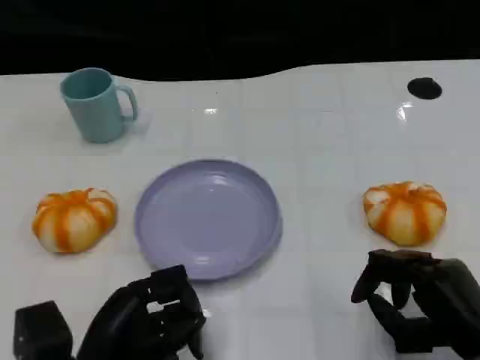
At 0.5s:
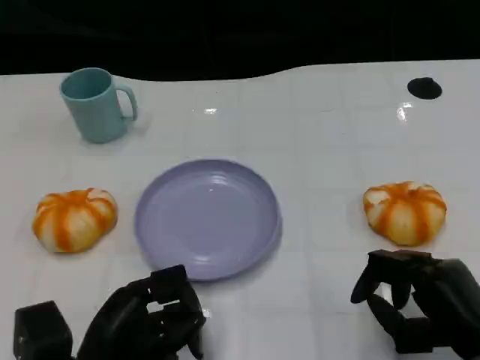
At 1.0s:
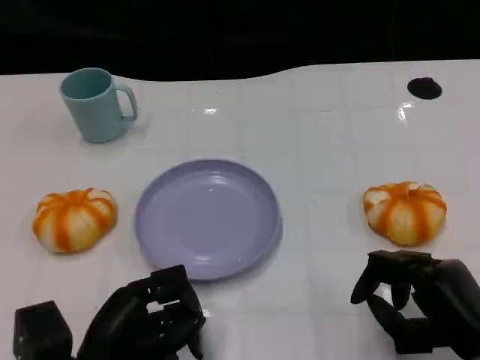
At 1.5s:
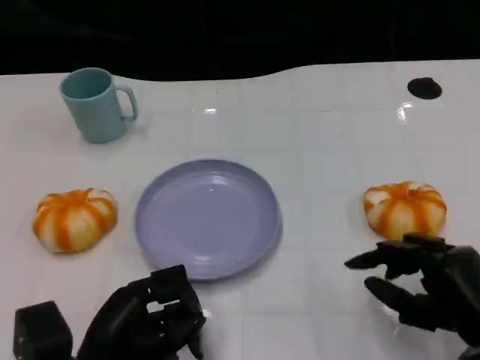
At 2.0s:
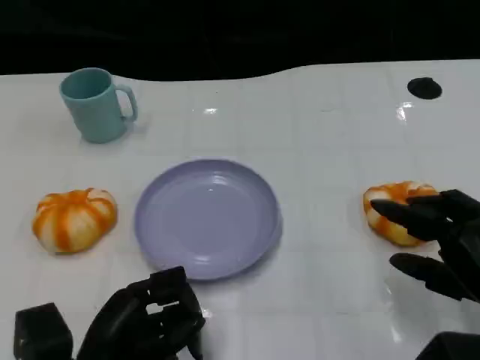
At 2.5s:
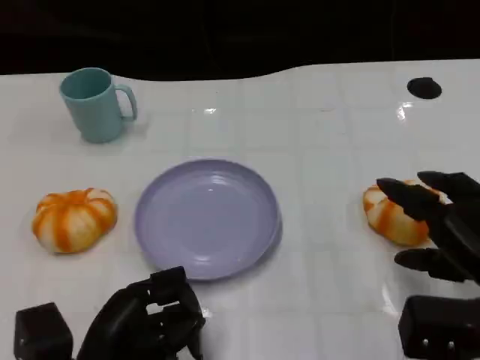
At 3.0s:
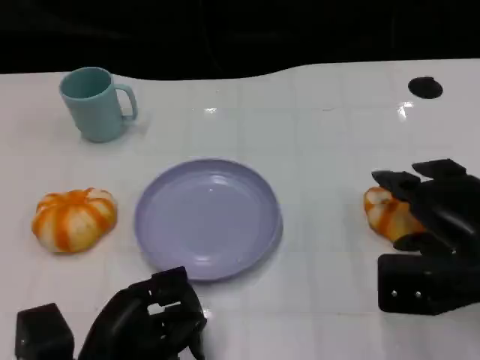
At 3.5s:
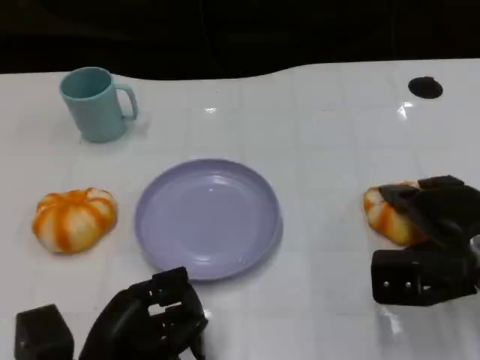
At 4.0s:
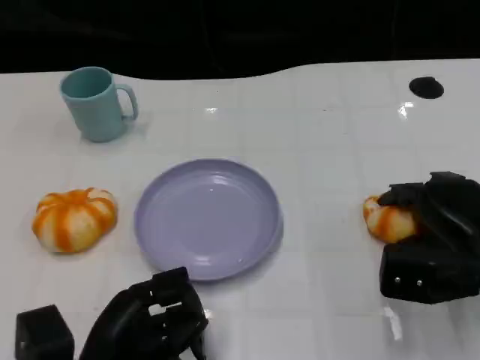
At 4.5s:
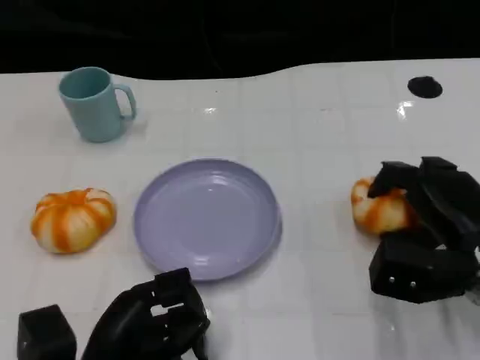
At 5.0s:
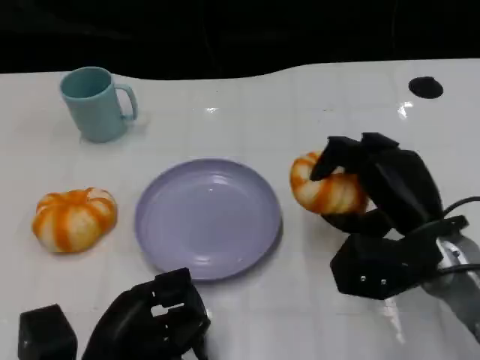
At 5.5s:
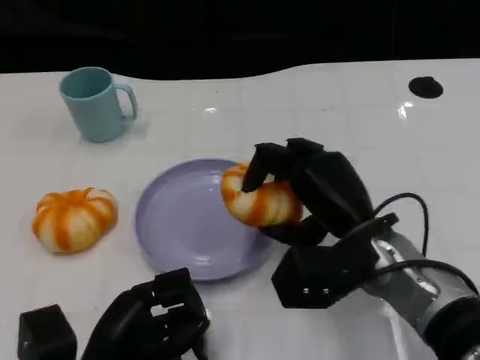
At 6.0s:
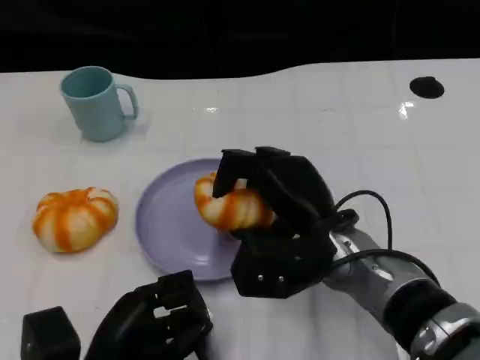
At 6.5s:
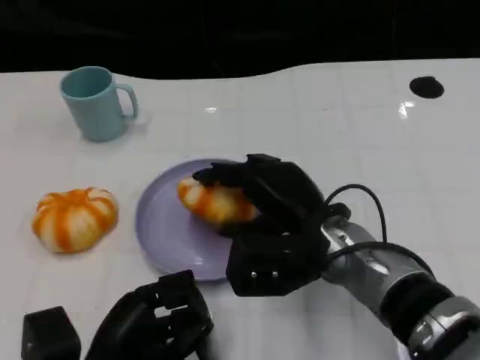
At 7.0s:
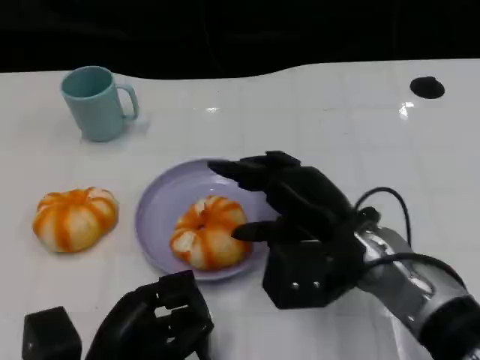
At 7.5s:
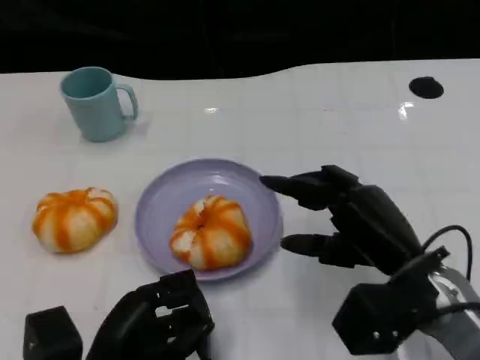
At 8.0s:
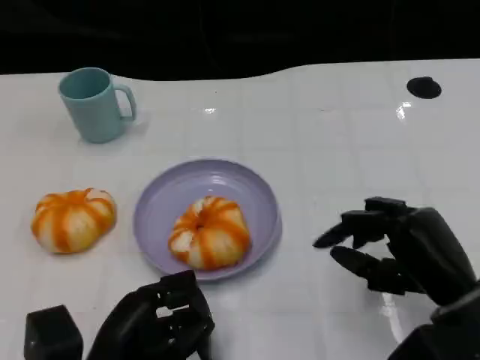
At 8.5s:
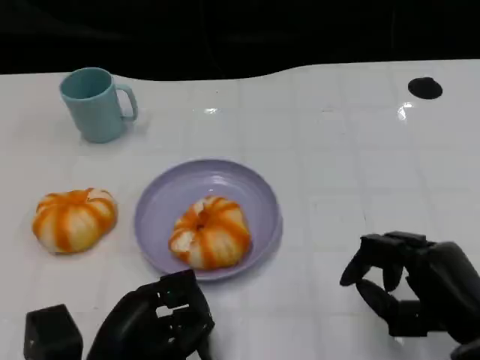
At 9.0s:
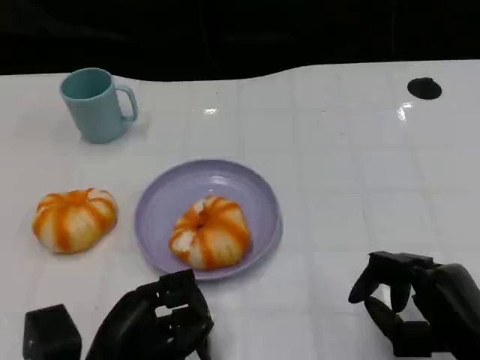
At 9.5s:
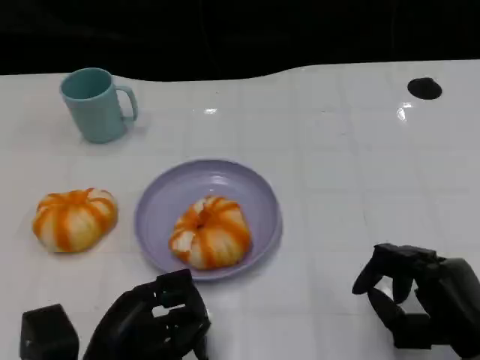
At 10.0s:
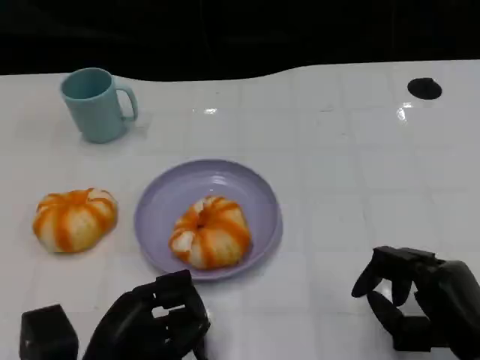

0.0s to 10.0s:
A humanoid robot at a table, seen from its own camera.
Task of the whole recording: Grasp the bread from the table and place it into the plate.
0.0s to 2.0s: The right hand shifts by some 5 cm.
2.0s to 4.0s: The right hand shifts about 10 cm forward.
4.0s to 6.0s: The right hand shifts approximately 15 cm to the left.
6.0s to 8.0s: The right hand goes some 15 cm to the right and backward.
8.0s to 10.0s: The right hand shifts by approximately 5 cm.

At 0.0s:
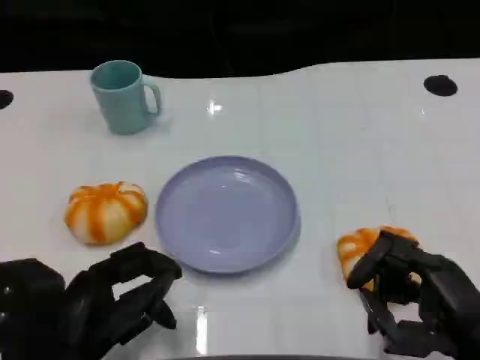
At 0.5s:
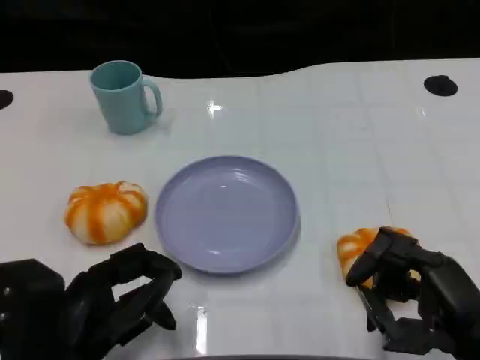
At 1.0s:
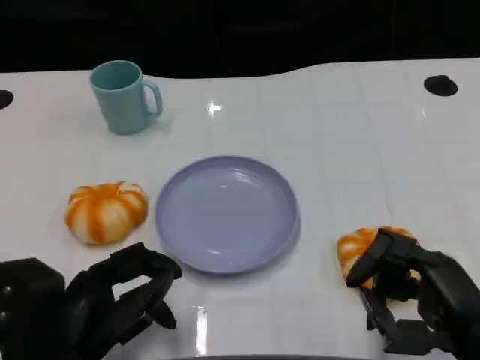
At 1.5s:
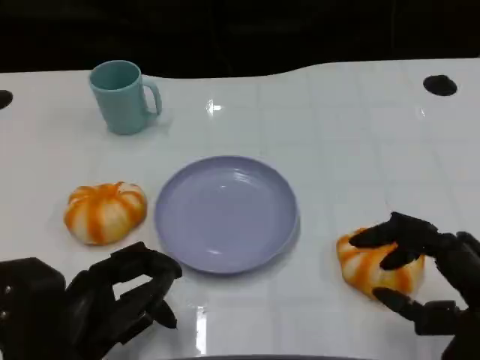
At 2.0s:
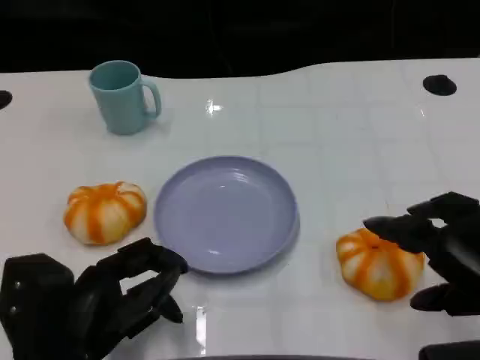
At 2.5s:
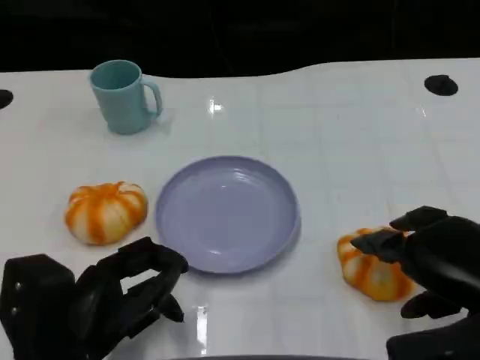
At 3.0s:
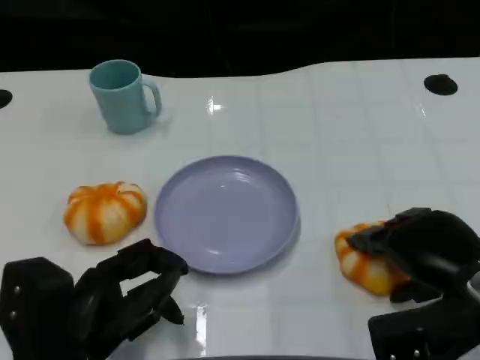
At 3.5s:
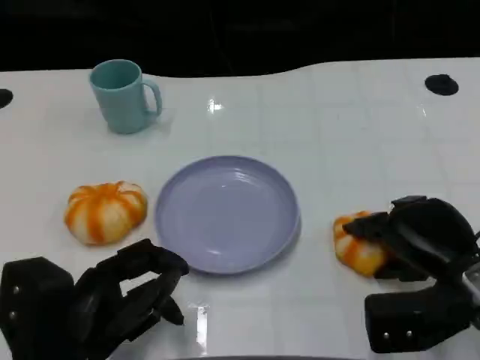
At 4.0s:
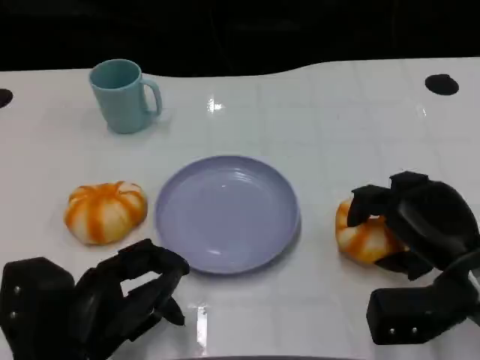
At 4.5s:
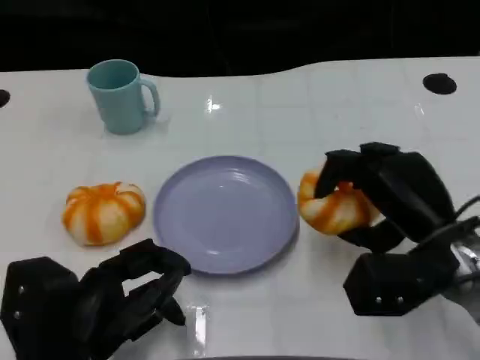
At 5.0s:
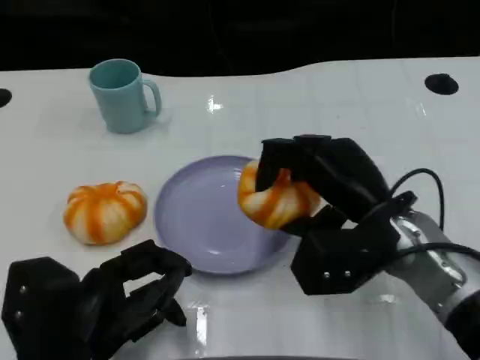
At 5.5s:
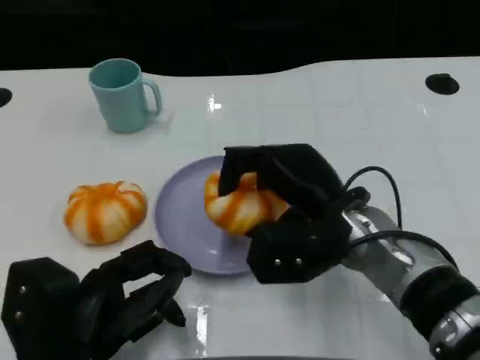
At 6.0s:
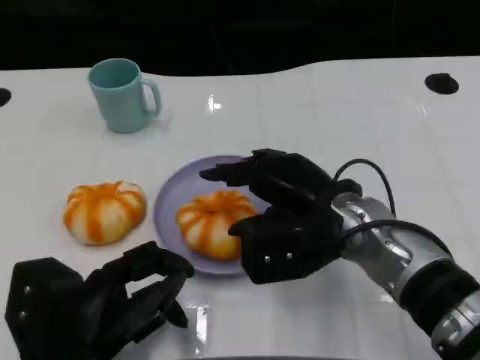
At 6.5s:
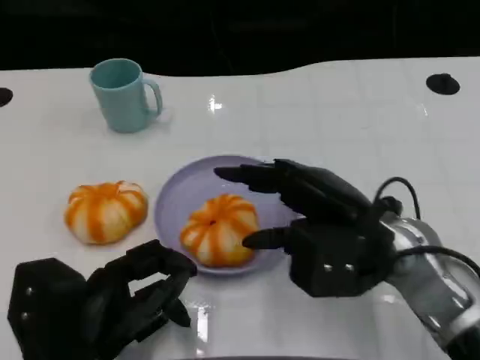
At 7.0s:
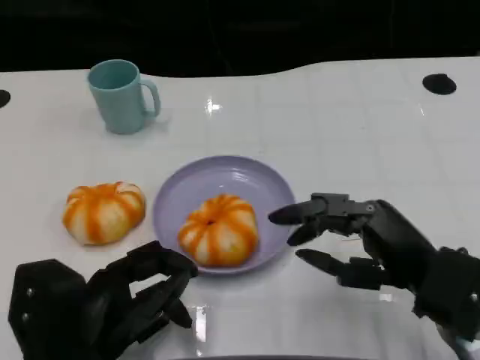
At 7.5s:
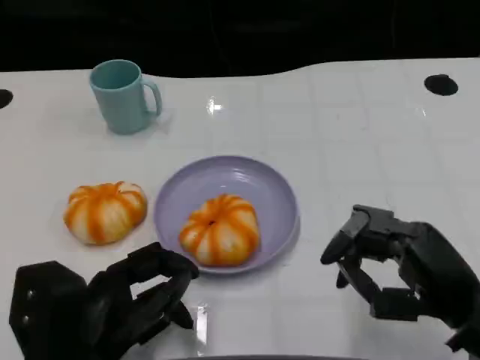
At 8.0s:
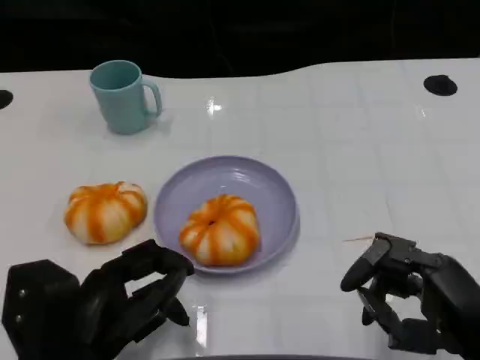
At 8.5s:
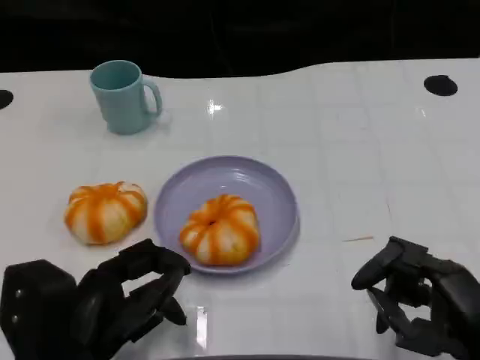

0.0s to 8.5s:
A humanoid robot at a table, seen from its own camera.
Task of the whole recording: Grasp the bread from the table and place it into the plate.
0.0s to 2.0s: The right hand moves upward, roughly 5 cm.
2.0s to 4.0s: The right hand moves forward and downward, approximately 10 cm.
4.0s to 6.5s: The right hand is displaced to the left and upward by some 10 cm.
6.5s to 8.5s: The right hand shifts approximately 15 cm backward and to the right.

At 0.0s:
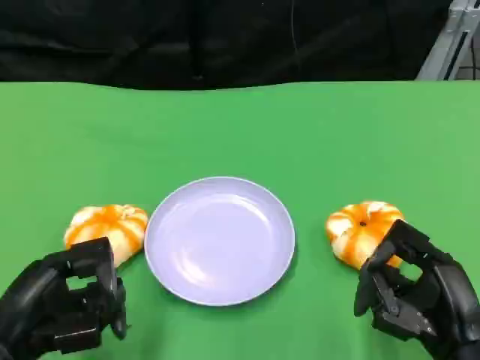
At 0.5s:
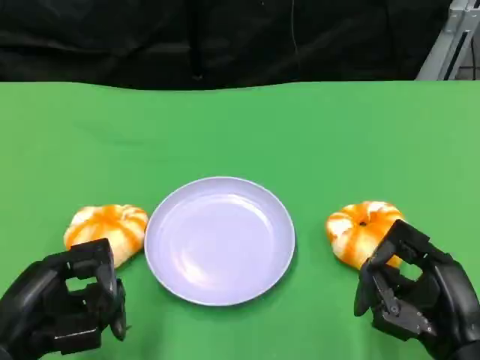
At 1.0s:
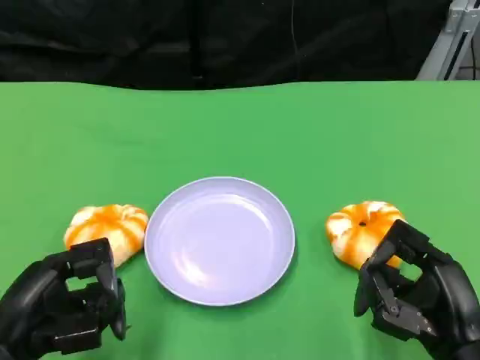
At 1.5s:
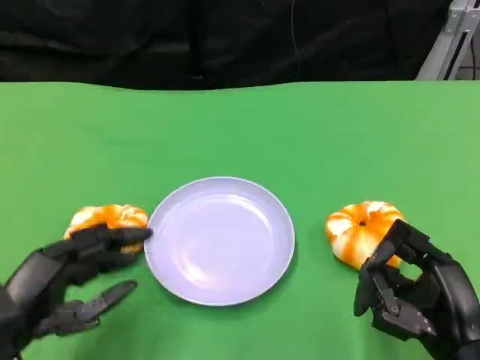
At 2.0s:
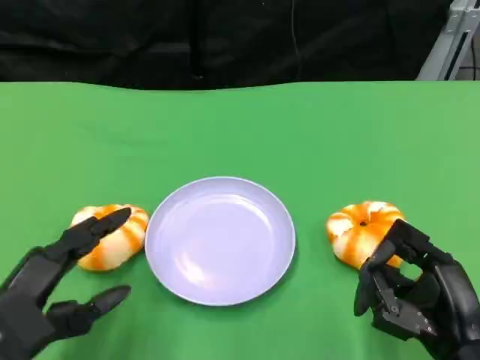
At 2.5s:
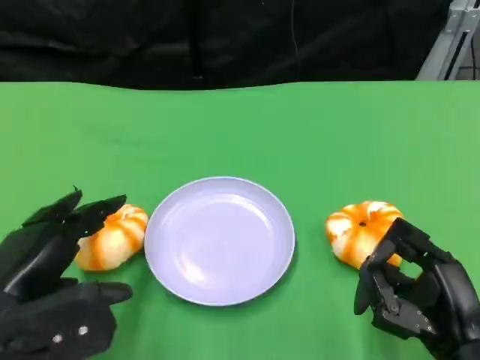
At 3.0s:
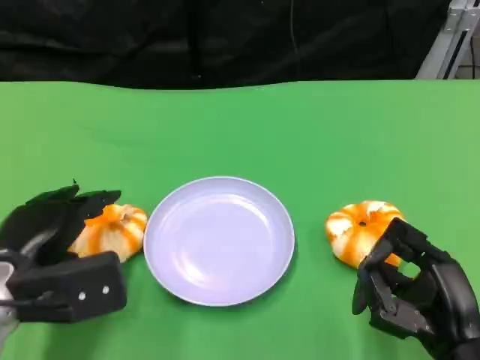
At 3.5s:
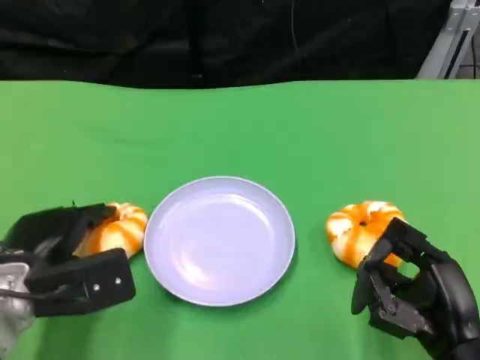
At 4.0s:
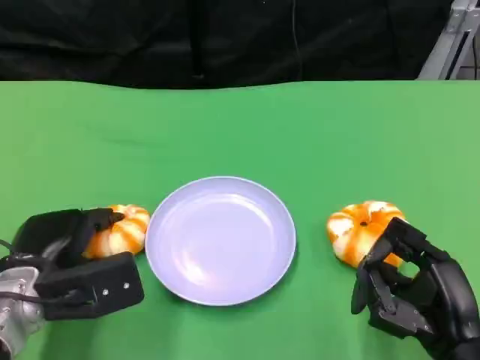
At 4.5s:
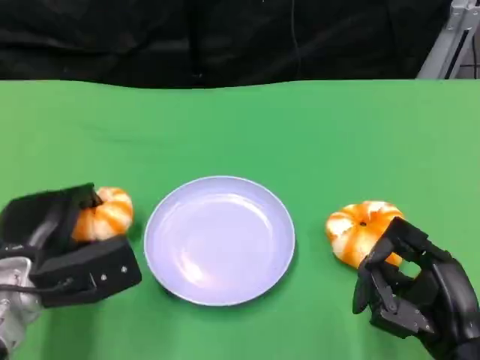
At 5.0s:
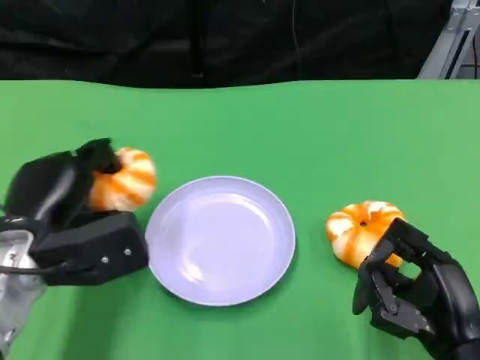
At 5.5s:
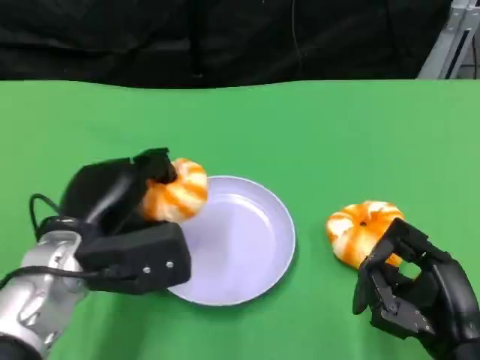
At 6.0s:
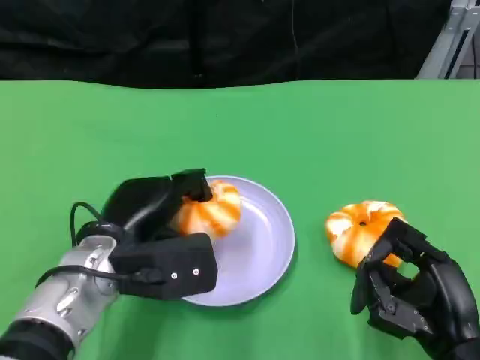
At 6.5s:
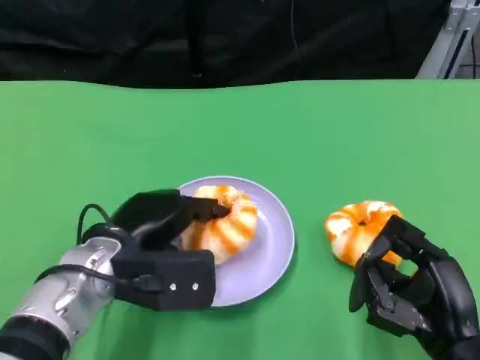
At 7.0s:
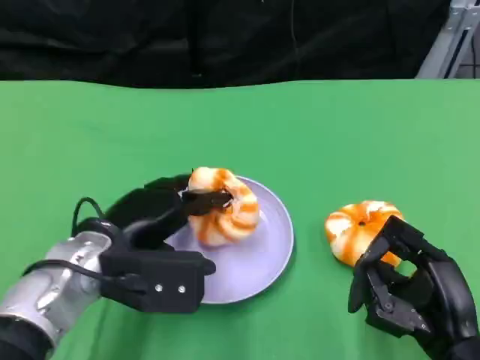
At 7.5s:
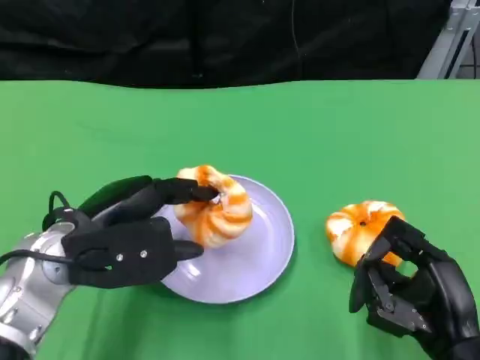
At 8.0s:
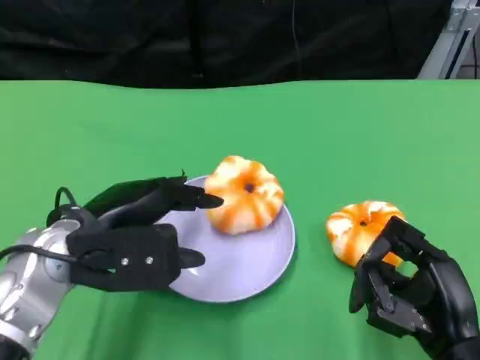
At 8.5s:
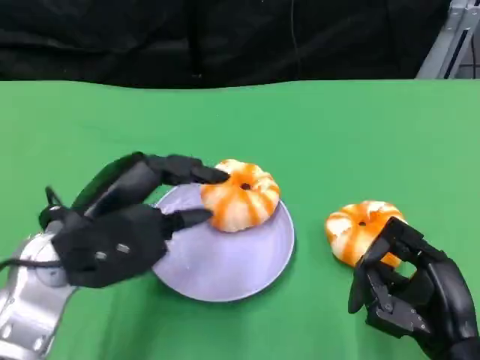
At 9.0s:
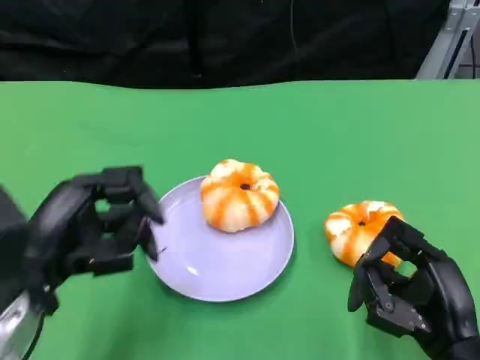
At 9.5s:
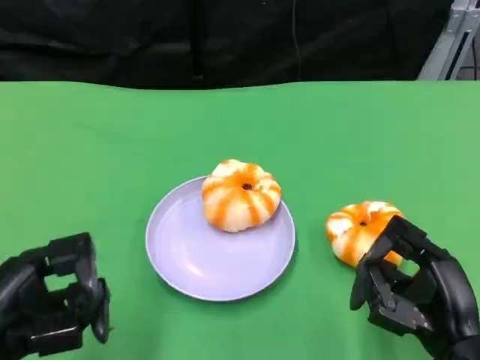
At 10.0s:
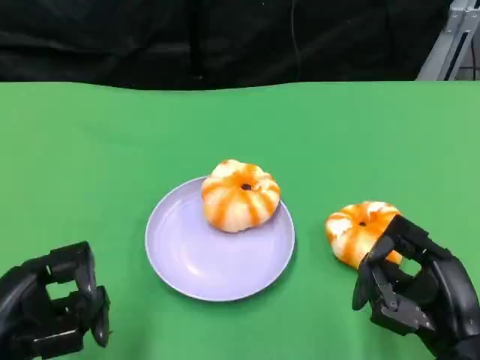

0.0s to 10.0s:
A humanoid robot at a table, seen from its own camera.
Task of the whole recording: Grasp the bread from the table and place it into the plate.
2.0s to 4.0s: The left hand is displaced forward by approximately 10 cm.
4.0s to 6.0s: The left hand goes some 10 cm to the right.
6.0s to 8.0s: The left hand changes place by roughly 5 cm.
8.0s to 10.0s: The left hand goes about 15 cm backward and to the left.
